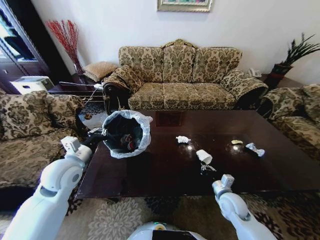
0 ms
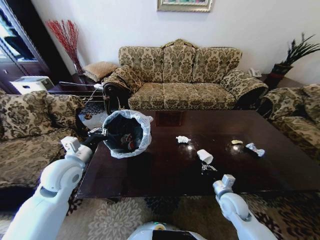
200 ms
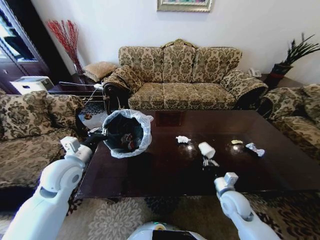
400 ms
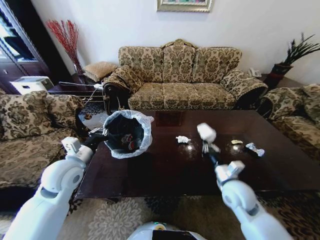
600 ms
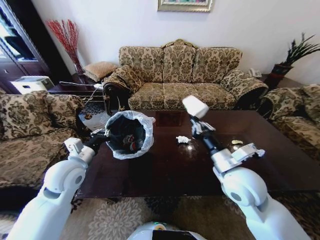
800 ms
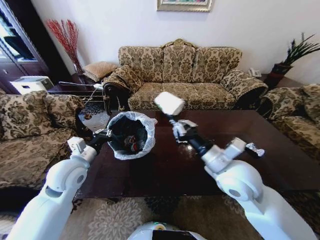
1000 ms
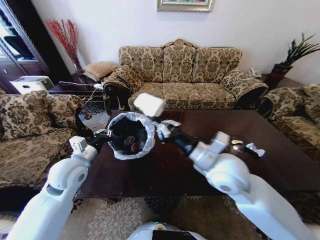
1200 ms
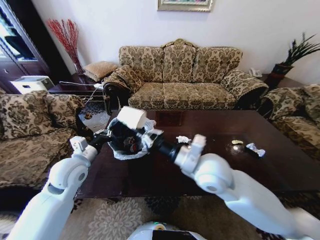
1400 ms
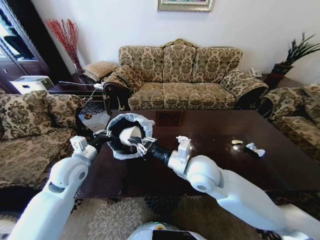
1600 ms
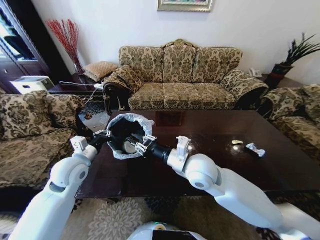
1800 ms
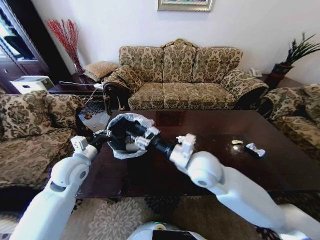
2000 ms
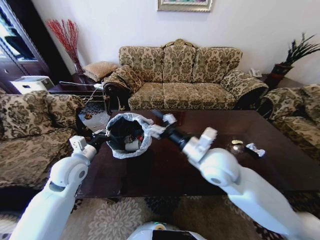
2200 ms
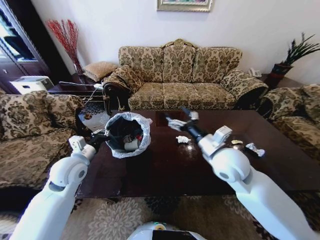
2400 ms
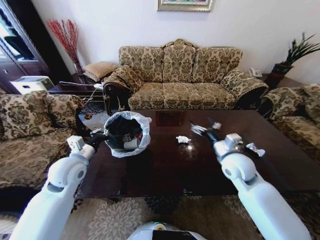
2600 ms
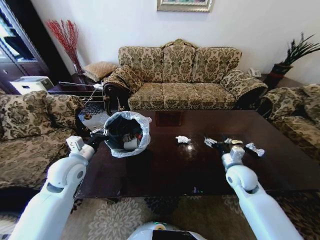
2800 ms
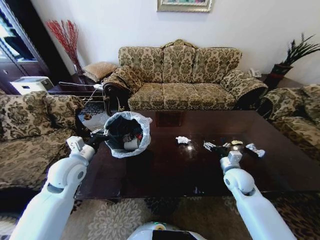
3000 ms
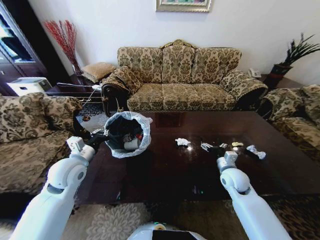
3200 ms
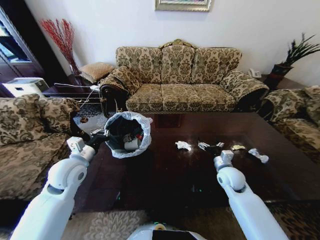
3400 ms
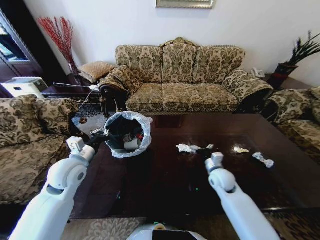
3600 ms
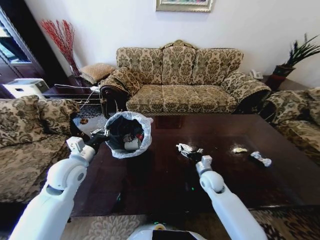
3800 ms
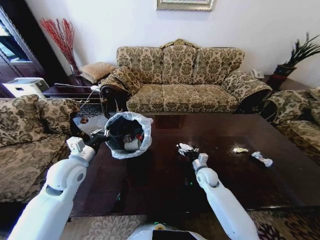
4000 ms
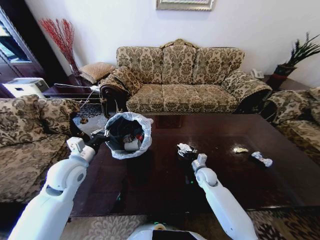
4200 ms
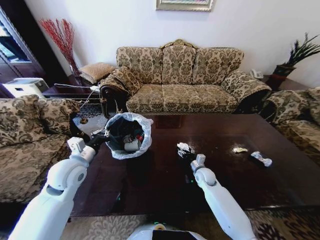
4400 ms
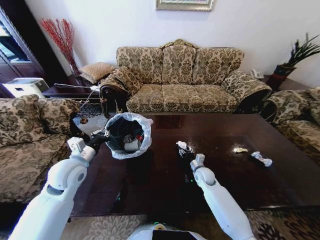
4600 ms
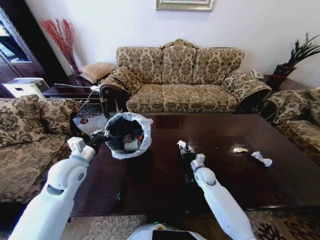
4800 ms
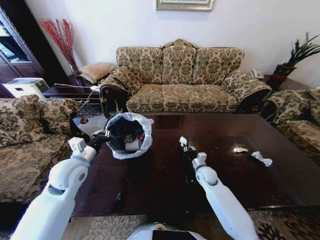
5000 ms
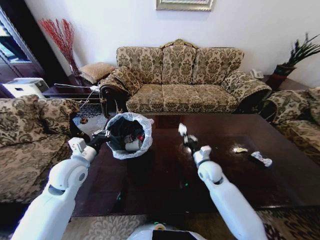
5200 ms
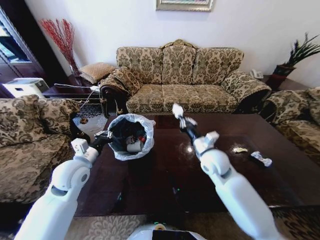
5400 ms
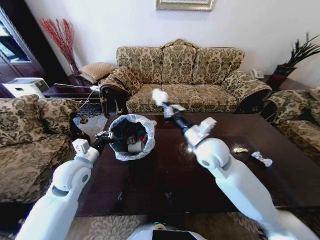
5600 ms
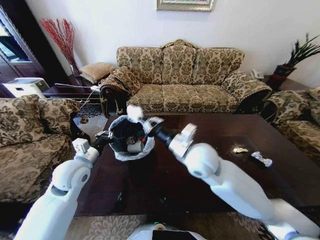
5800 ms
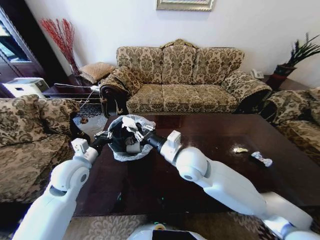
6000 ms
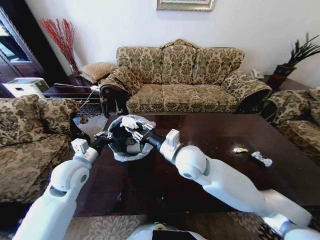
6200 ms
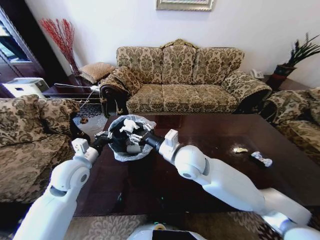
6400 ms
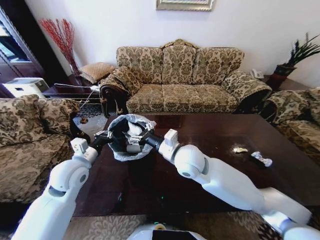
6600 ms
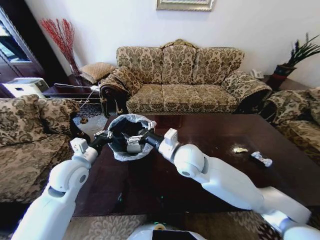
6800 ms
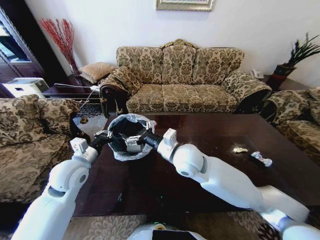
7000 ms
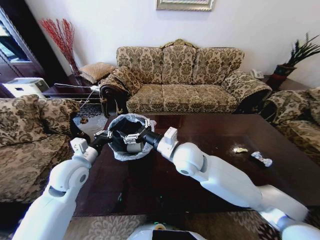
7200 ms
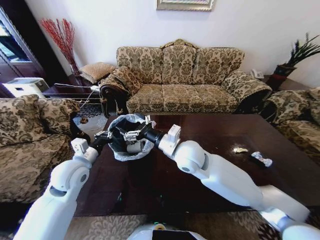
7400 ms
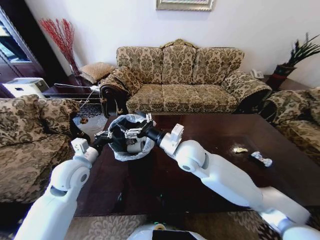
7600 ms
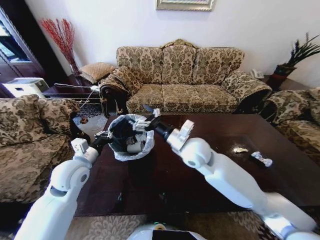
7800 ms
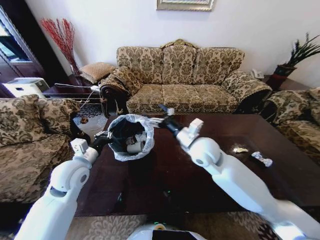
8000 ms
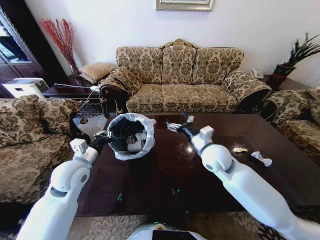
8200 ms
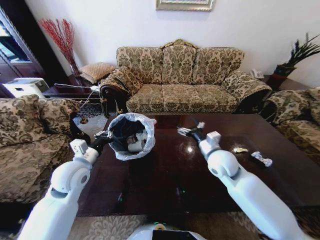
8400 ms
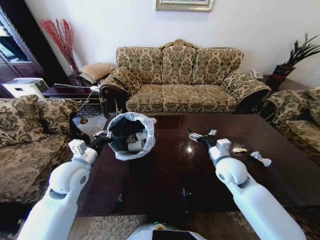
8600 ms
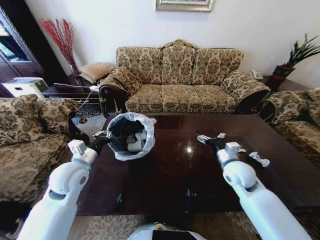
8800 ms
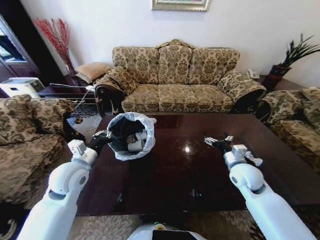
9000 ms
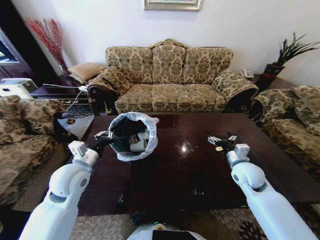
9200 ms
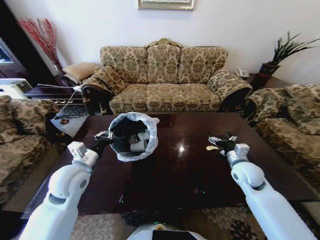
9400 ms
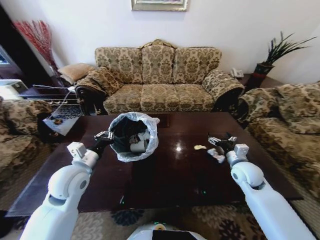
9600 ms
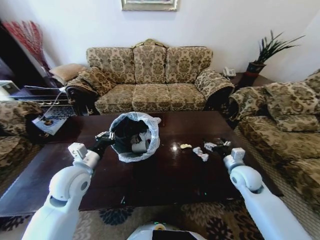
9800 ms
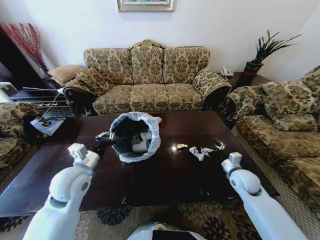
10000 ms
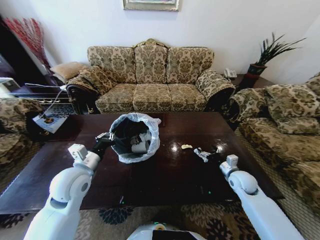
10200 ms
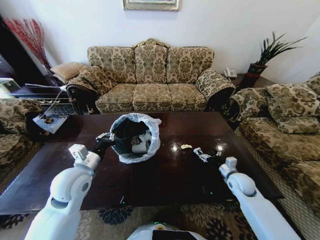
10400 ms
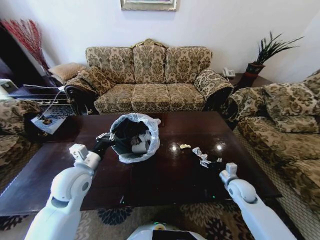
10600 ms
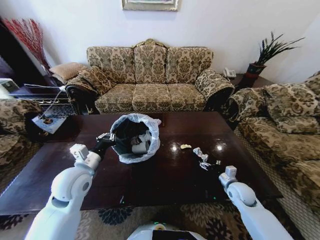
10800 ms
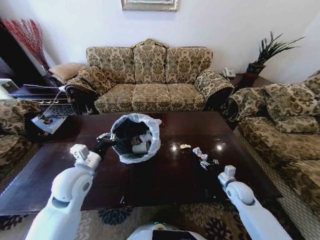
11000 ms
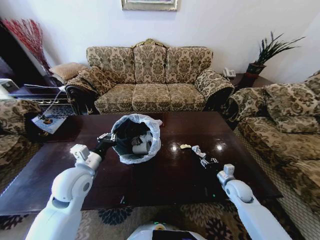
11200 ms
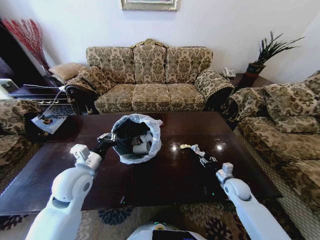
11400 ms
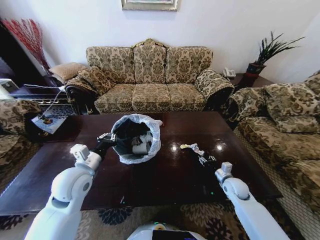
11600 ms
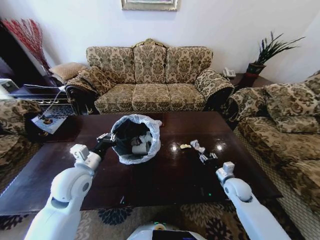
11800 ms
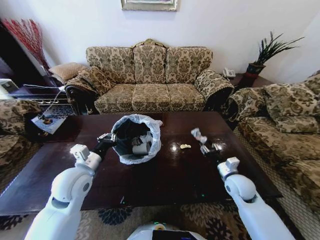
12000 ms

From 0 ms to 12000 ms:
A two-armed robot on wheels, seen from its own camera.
Task of the whole recording: Move to the front of the table and place the trash on the table into the trash bin.
From 0 ms to 1600 ms: The right gripper moves upward and to the left, some 30 cm.
From 1600 ms to 3000 ms: The right gripper shifts about 25 cm to the right and downward, and opens up.
From 3000 ms to 4400 ms: The right gripper shifts about 15 cm downward, to the left and forward.
From 4400 ms to 6000 ms: The right gripper goes approximately 30 cm upward and to the left, and closes up.
From 6000 ms to 7600 ms: The right gripper opens up.
From 7600 ms to 9000 ms: The right gripper goes approximately 25 cm to the right and downward.
From 9000 ms to 10400 ms: The right gripper heads downward, covering some 10 cm.
From 10400 ms to 12000 ms: The right gripper travels upward and to the left by approximately 10 cm, and closes.

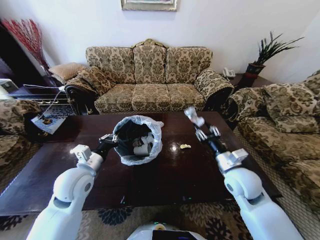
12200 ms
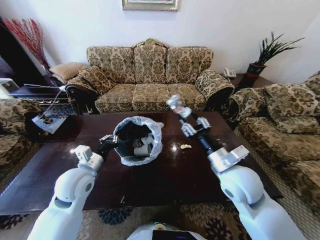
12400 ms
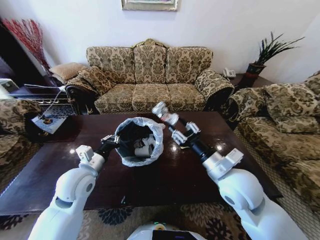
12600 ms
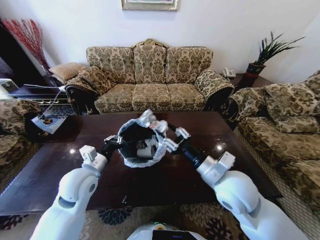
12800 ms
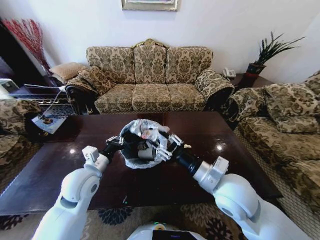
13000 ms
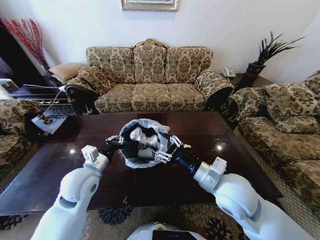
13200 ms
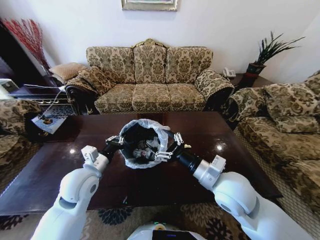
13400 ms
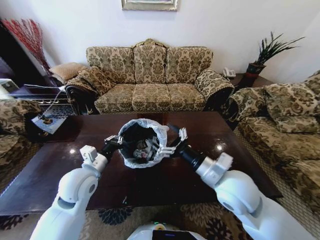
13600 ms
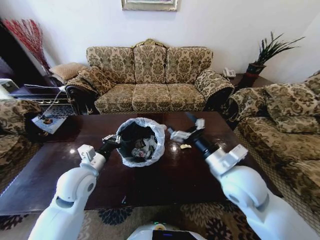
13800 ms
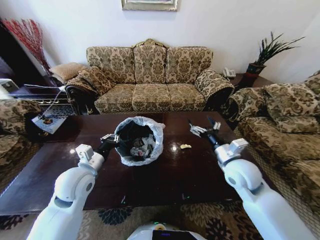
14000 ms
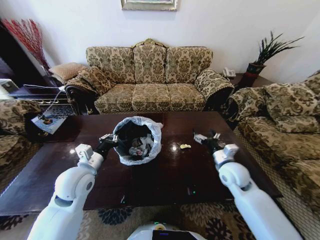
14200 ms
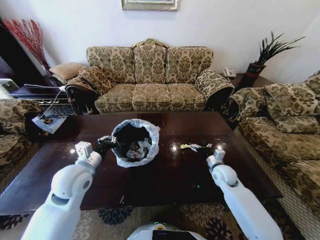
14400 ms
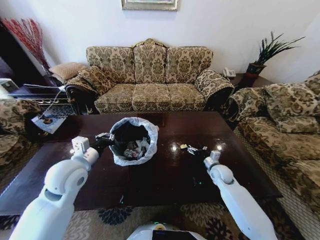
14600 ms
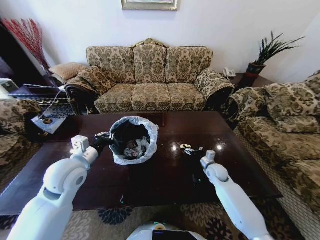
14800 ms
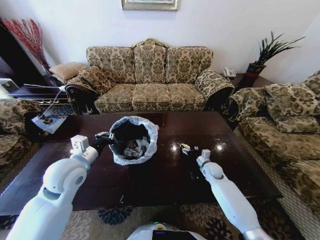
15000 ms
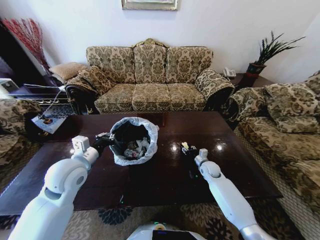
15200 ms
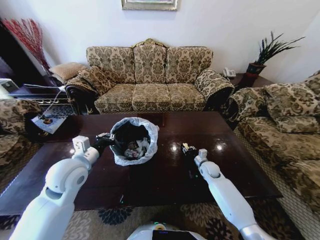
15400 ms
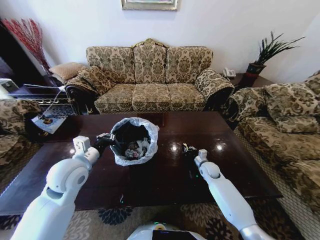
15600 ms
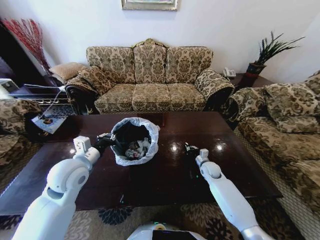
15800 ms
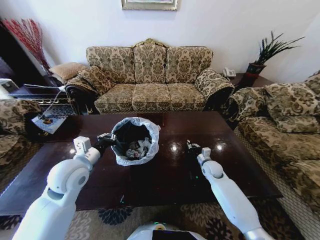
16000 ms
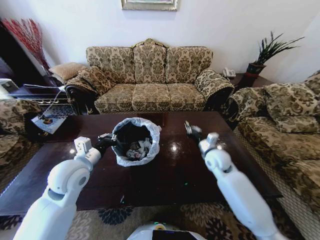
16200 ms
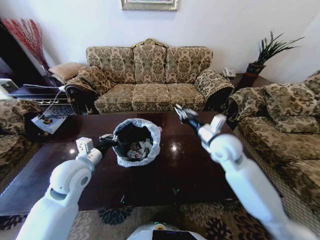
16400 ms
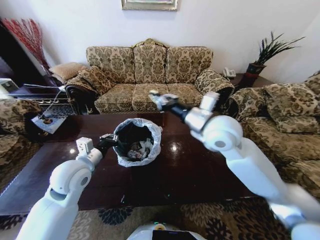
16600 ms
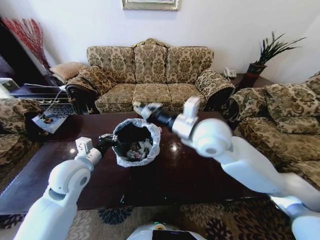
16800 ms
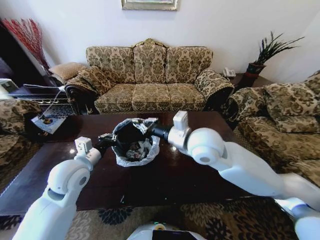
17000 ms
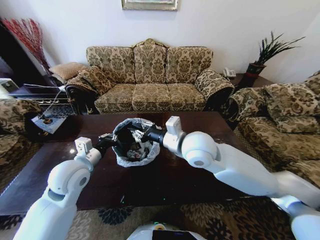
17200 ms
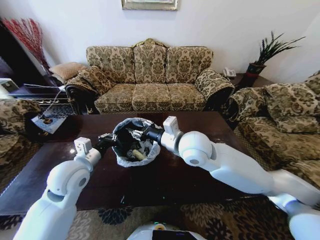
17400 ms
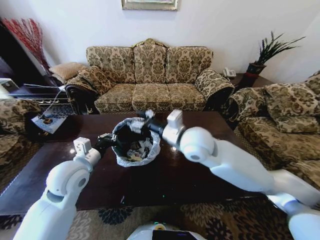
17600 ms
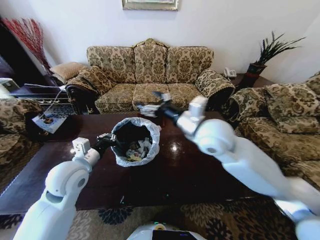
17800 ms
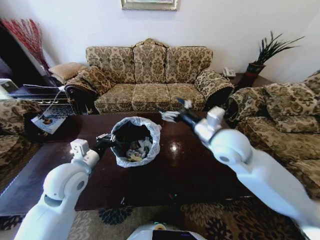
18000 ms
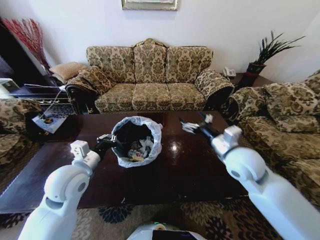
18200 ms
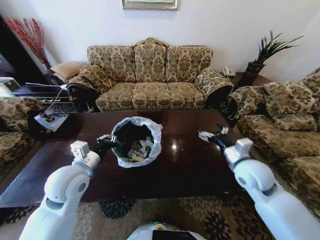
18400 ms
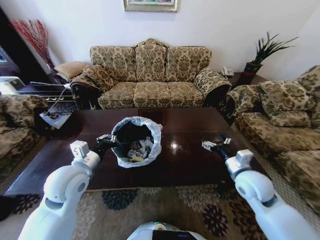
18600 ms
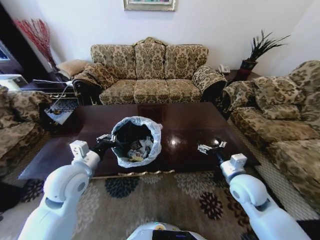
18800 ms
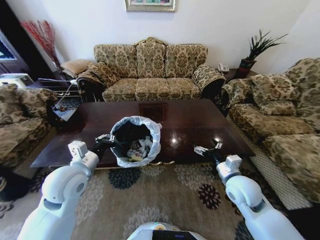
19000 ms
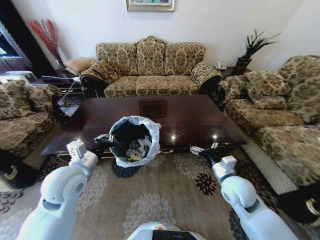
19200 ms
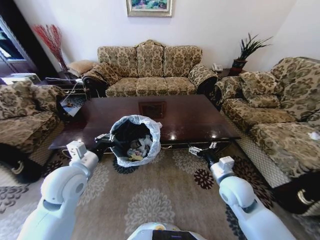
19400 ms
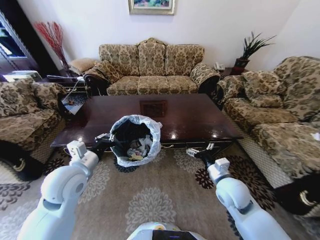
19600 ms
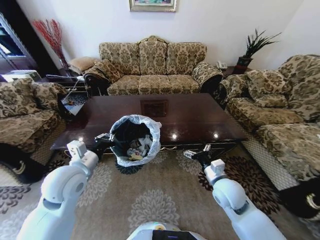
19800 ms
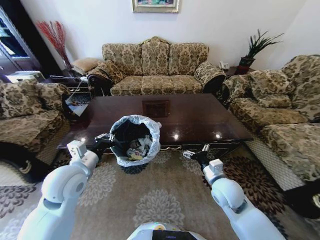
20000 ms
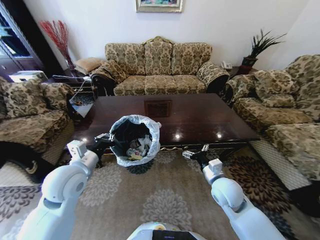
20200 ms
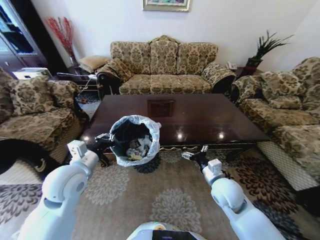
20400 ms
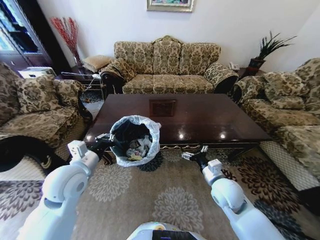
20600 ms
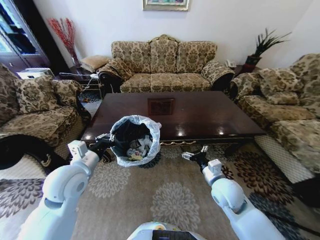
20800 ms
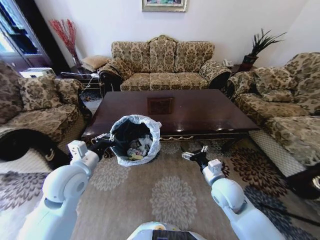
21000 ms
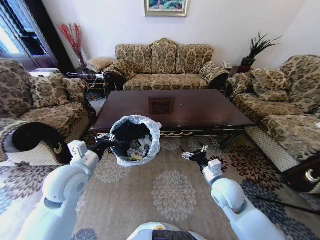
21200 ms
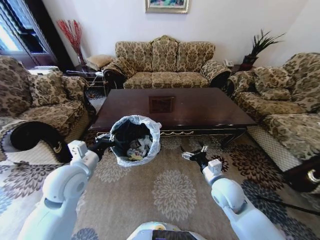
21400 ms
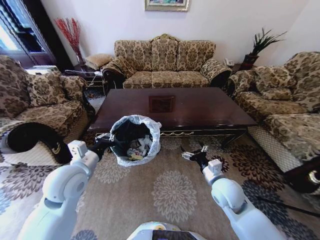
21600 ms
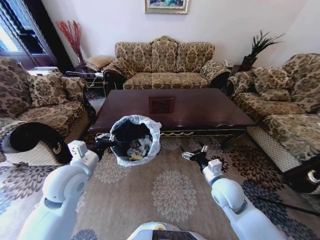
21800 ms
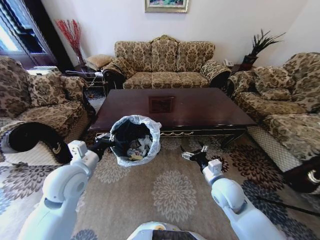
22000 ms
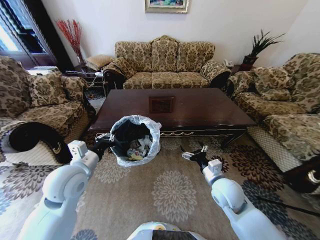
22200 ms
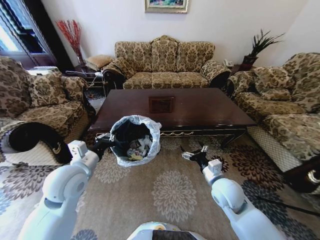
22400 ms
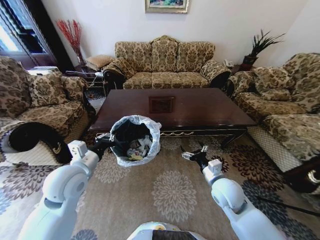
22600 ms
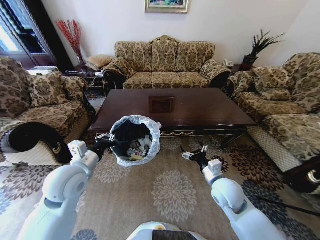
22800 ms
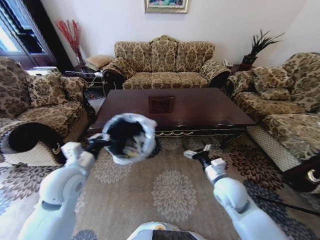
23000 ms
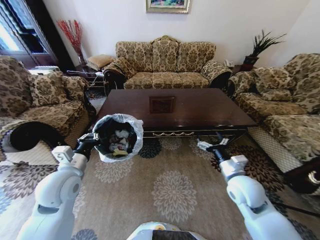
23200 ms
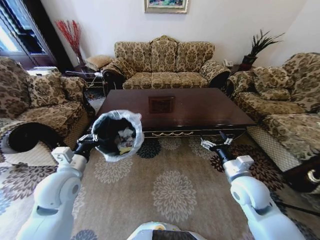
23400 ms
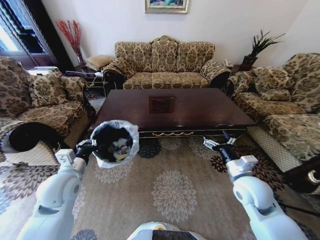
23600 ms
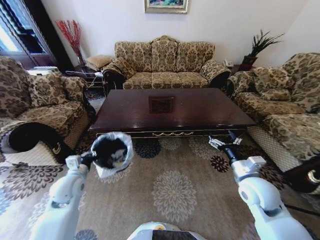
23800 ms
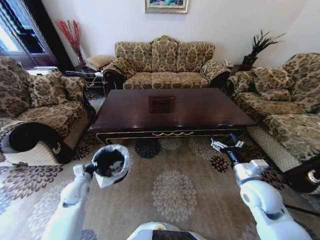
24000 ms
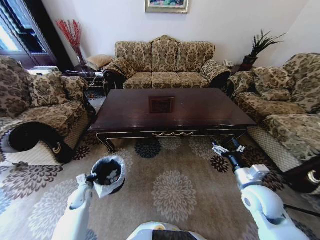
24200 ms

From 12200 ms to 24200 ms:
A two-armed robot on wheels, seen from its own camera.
Task of the whole recording: Move to the front of the table and place the trash on the table into the trash bin.
From 12200 ms to 13800 ms: The right gripper shifts some 10 cm upward and to the left, and opens up.
From 13800 ms to 15200 ms: The right gripper shifts about 30 cm downward and forward, and closes its fingers.
From 15200 ms to 16600 ms: The right gripper shifts some 35 cm upward, and closes.
From 16600 ms to 18200 ms: The right gripper moves downward and to the right, approximately 15 cm, and opens its fingers.
From 18200 ms to 19800 ms: The right gripper heads downward, covering some 15 cm.
From 21200 ms to 22600 ms: Both grippers stay about where they are.
From 22600 ms to 24200 ms: The left gripper is displaced downward and to the left by about 30 cm, while the right gripper goes some 10 cm to the right.
